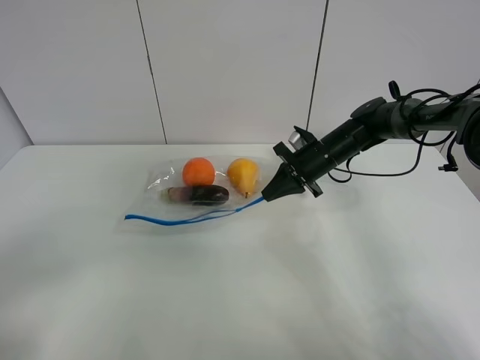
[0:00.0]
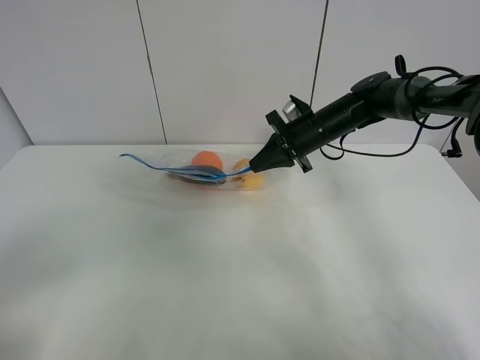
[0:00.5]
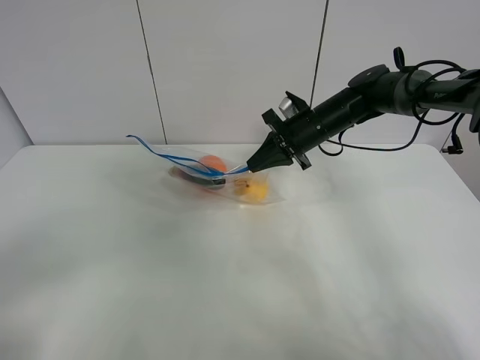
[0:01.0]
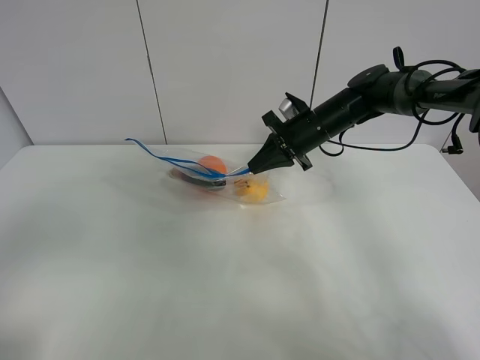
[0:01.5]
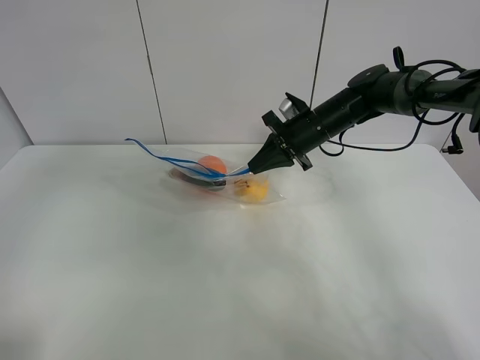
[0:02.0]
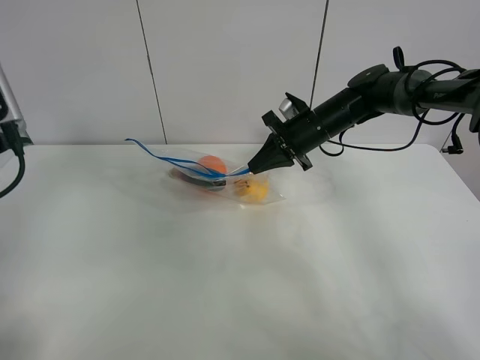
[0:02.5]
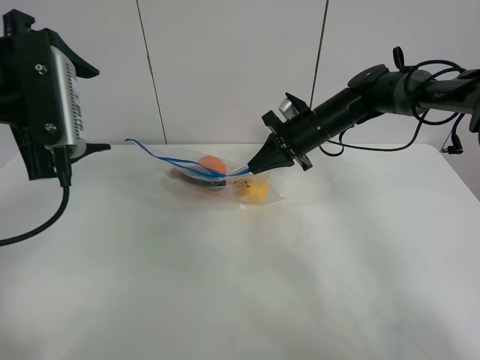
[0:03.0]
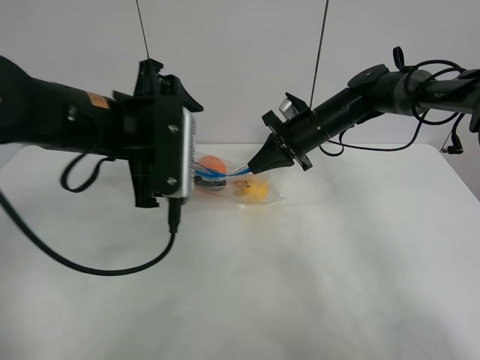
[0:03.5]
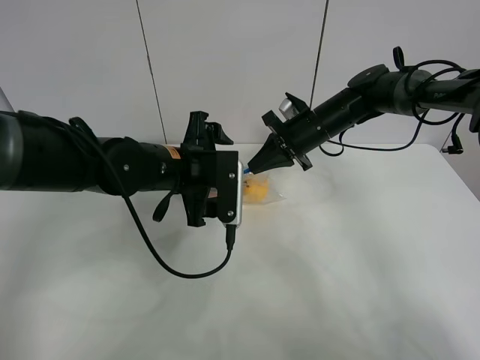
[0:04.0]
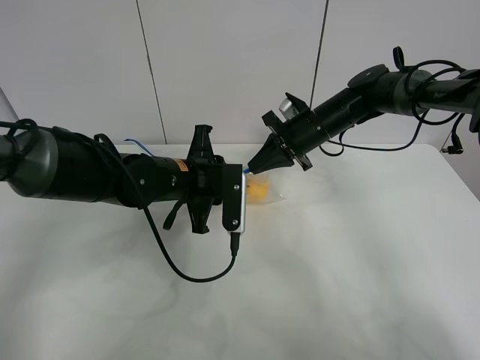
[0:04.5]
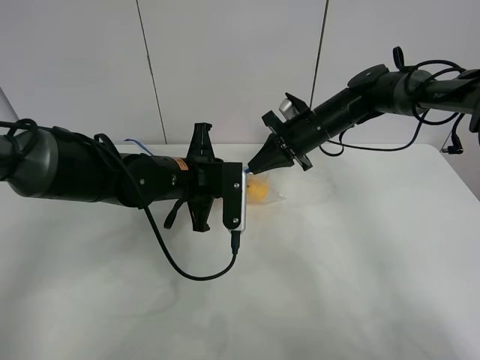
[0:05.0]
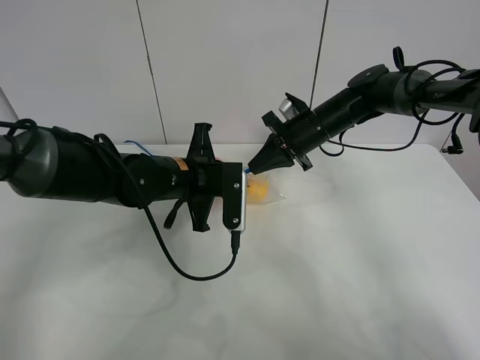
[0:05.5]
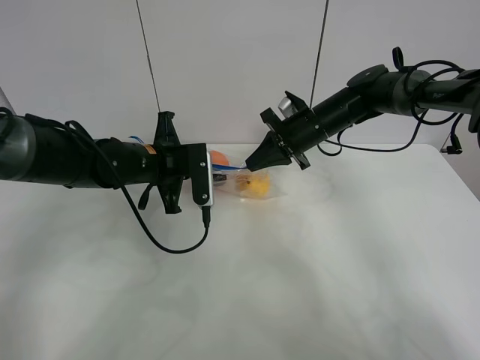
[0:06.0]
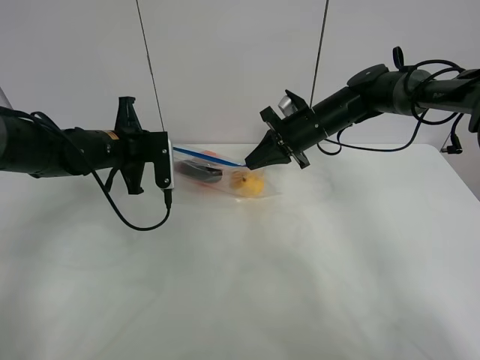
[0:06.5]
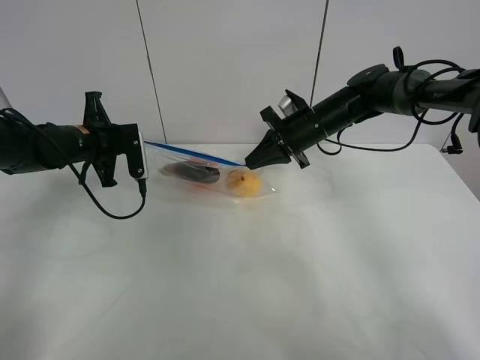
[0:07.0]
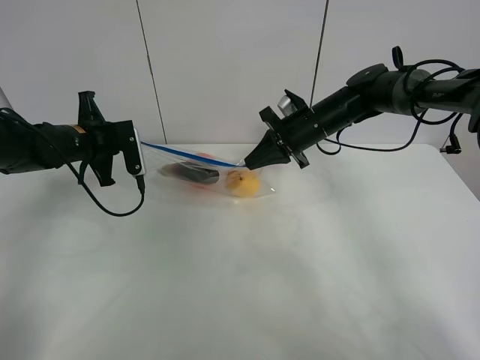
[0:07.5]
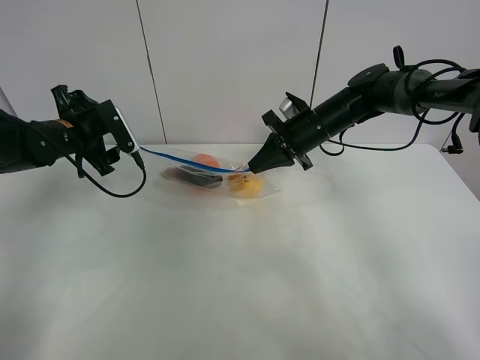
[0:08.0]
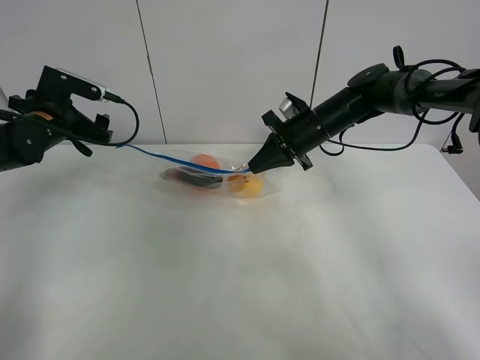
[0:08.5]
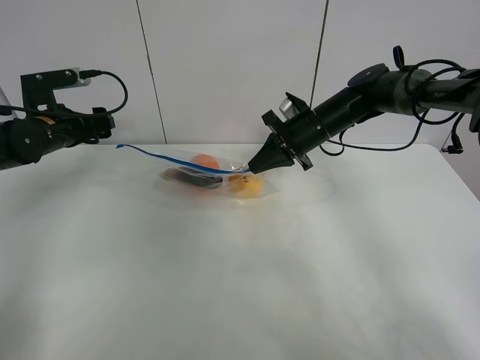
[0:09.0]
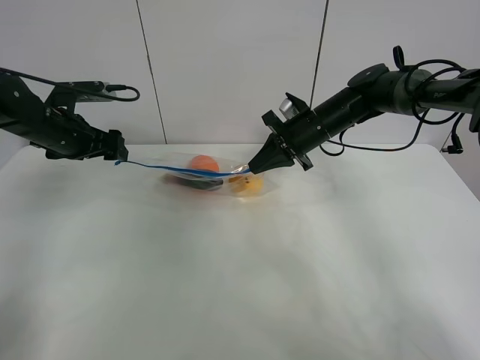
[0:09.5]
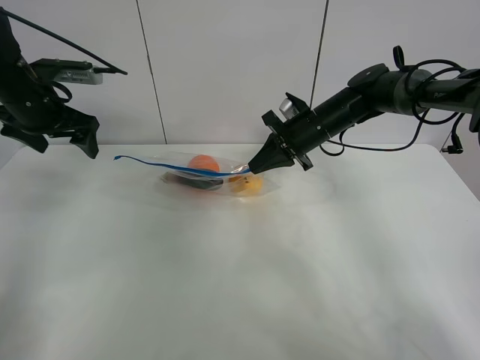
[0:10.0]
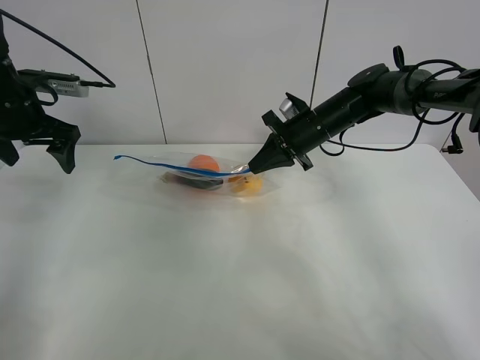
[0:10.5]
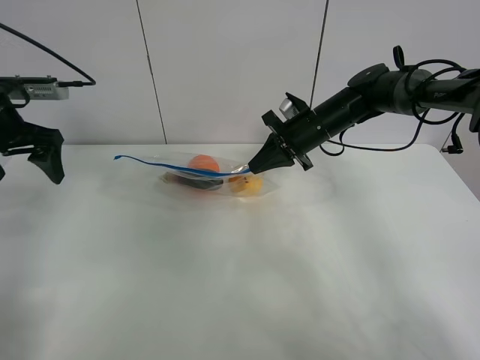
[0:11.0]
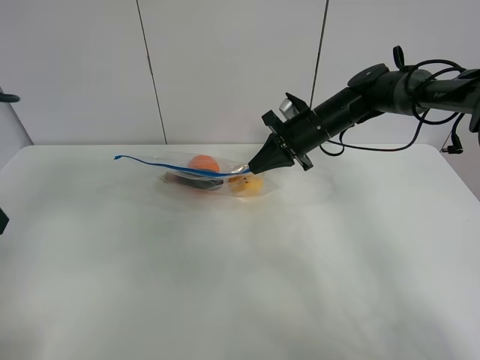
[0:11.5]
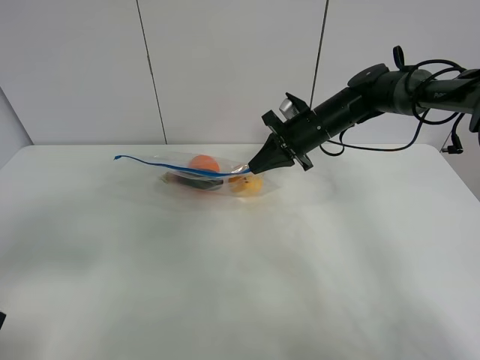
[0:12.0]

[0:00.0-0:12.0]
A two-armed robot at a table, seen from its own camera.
Step, 0:00.0 to 0:01.0: Lift the fruit bag with your right gripper.
Step, 0:01.5 to 0:08.0: Pull the fruit bag with left gripper.
0:00.0 to 0:02.0: The right gripper travels upward by some 5 cm; the left gripper moves forward and upward, approximately 20 cm.
0:02.0 to 0:04.0: The left gripper travels to the right, downward and forward by some 30 cm.
0:04.0 to 0:06.0: The left gripper moves to the left, approximately 5 cm, and closes up.
0:06.0 to 0:08.0: The left gripper goes about 15 cm to the left, and opens up.
0:08.0 to 0:10.0: The left gripper moves upward, some 10 cm.
0:10.0 to 0:12.0: The left gripper goes about 30 cm backward.

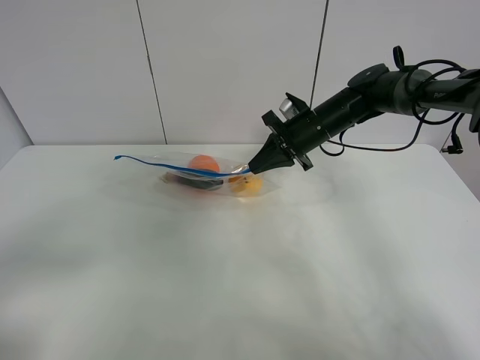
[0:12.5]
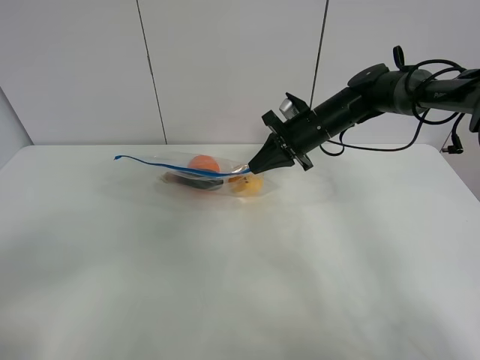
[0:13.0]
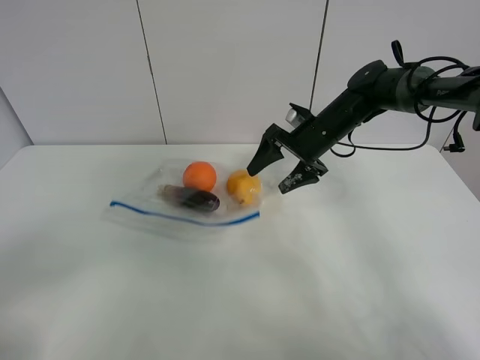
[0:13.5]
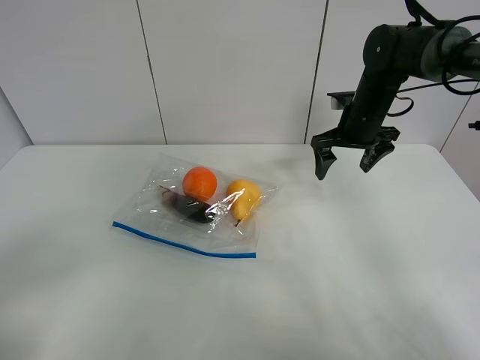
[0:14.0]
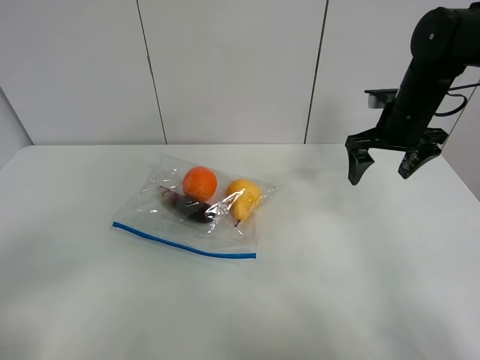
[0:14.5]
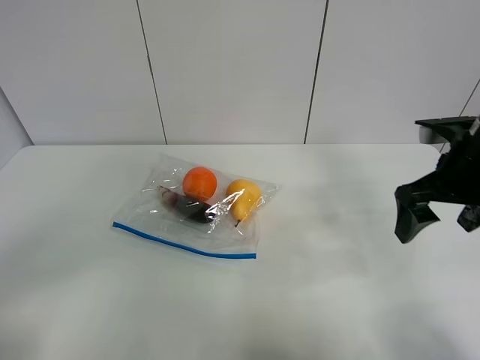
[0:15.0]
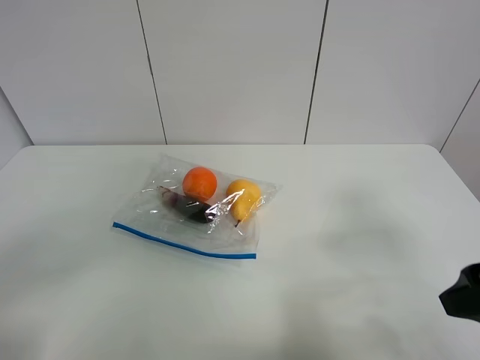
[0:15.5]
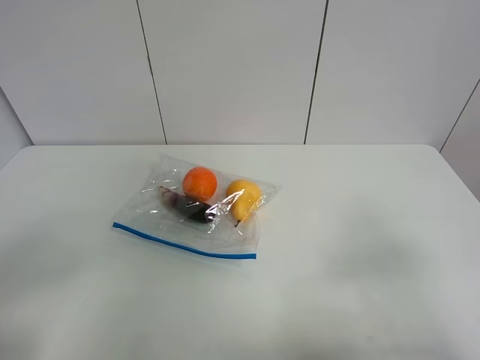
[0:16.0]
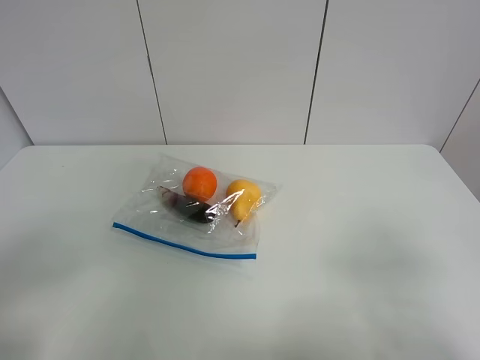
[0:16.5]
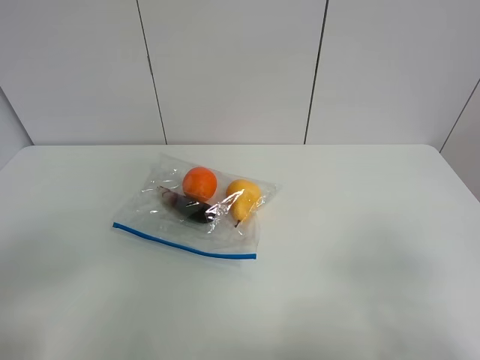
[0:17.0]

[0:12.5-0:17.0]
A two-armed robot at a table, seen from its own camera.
0:12.5 to 0:14.5: The right gripper moves to the right, upward and backward, about 15 cm, and opens its fingers.
0:14.5 to 0:17.0: The right gripper is displaced backward by about 40 cm.

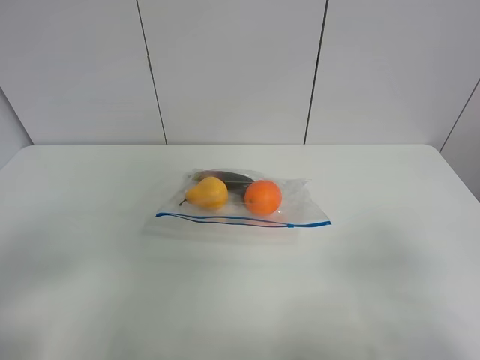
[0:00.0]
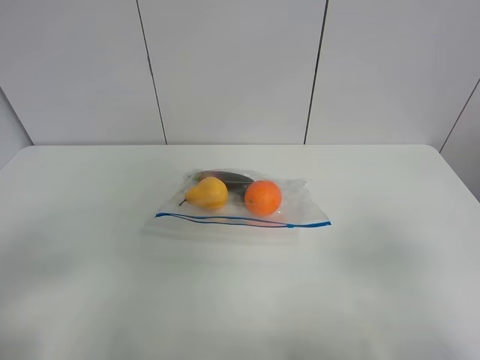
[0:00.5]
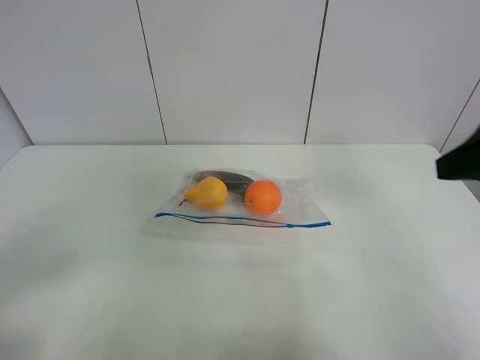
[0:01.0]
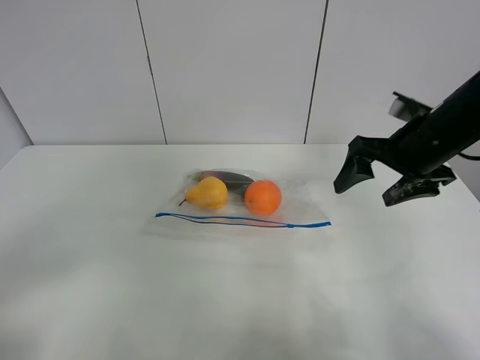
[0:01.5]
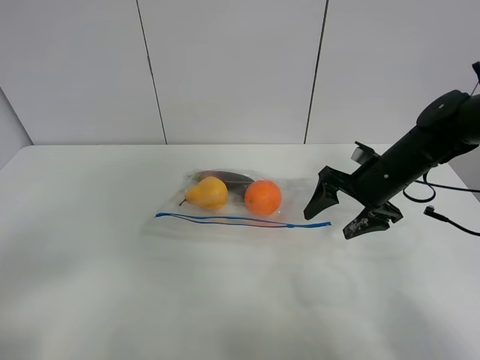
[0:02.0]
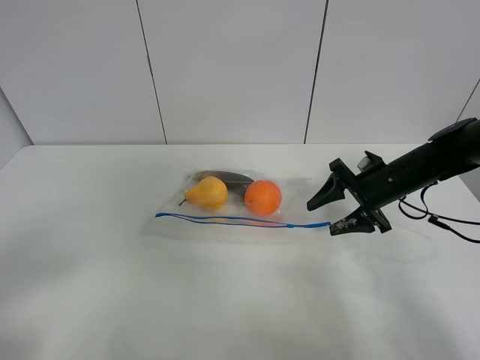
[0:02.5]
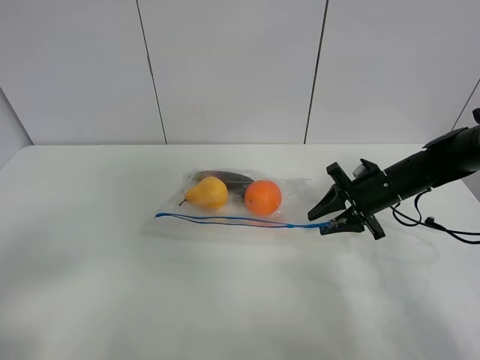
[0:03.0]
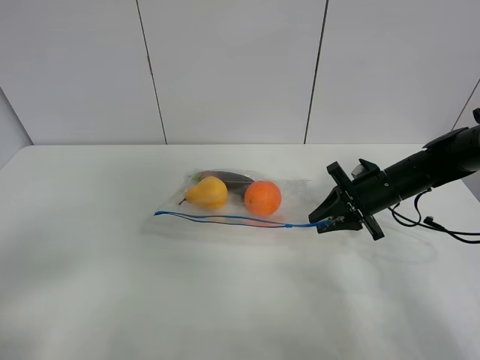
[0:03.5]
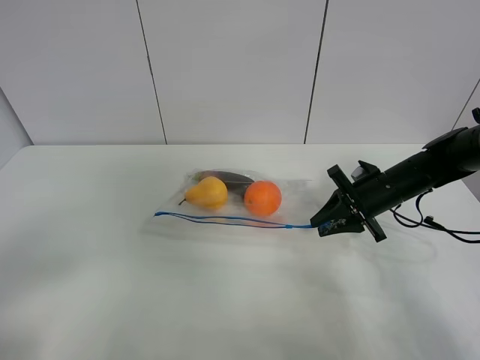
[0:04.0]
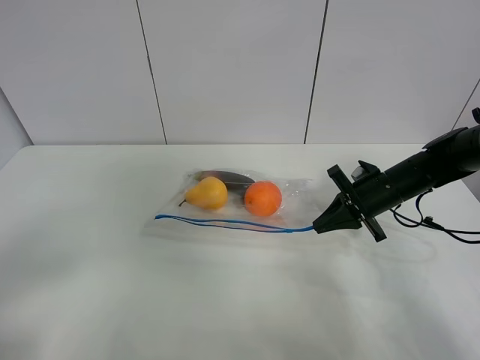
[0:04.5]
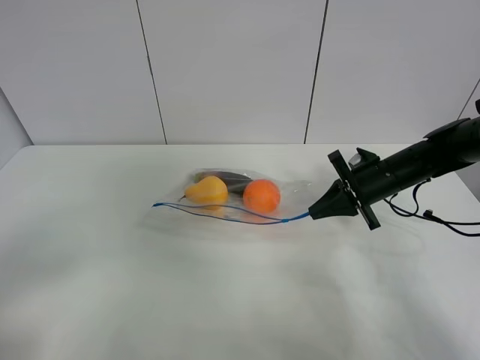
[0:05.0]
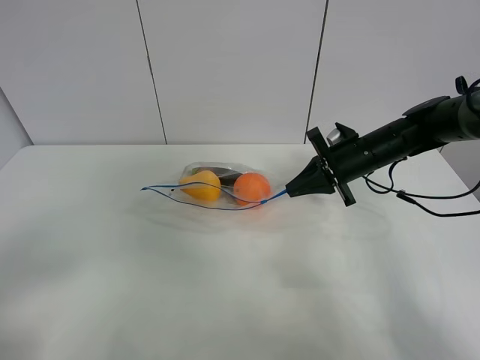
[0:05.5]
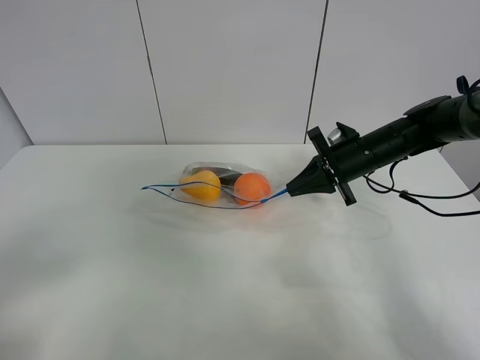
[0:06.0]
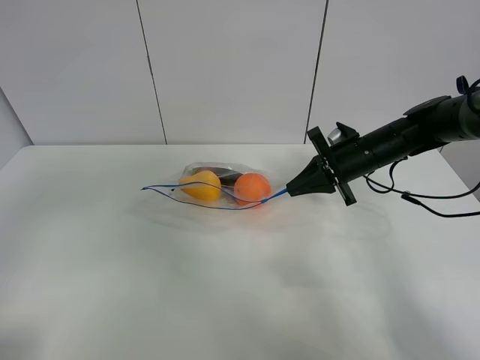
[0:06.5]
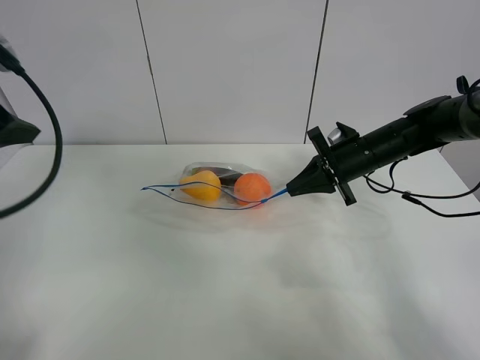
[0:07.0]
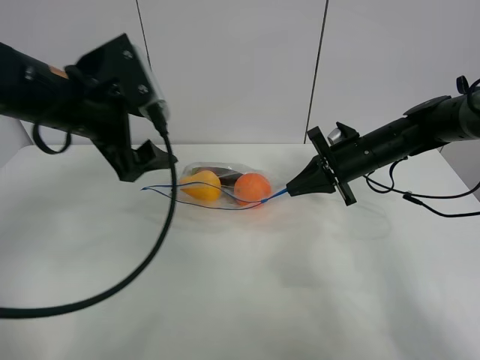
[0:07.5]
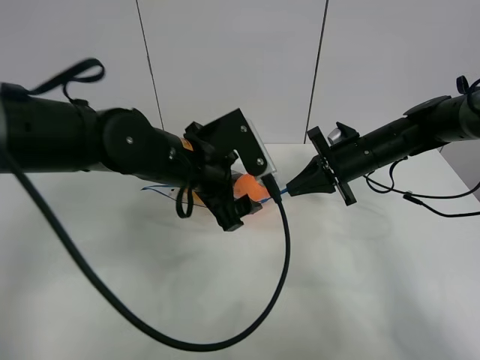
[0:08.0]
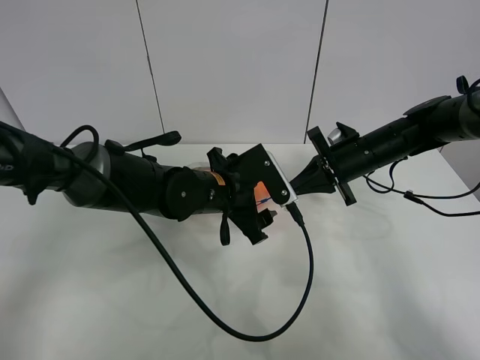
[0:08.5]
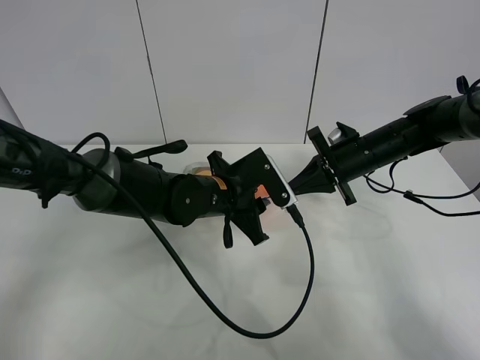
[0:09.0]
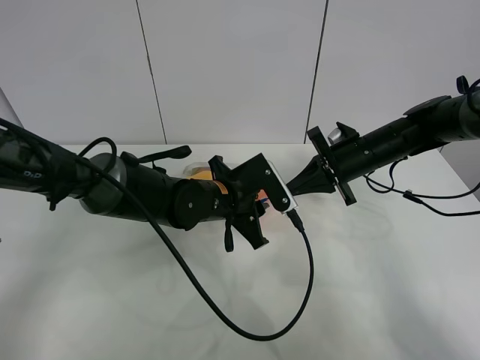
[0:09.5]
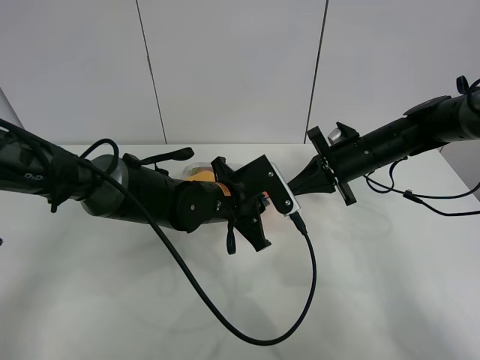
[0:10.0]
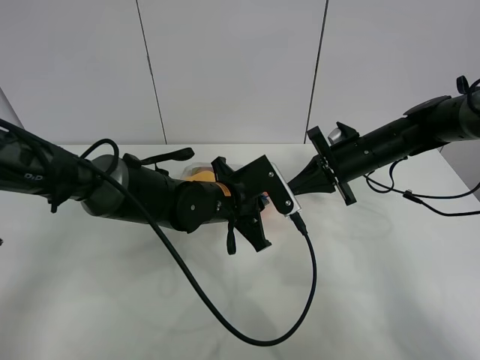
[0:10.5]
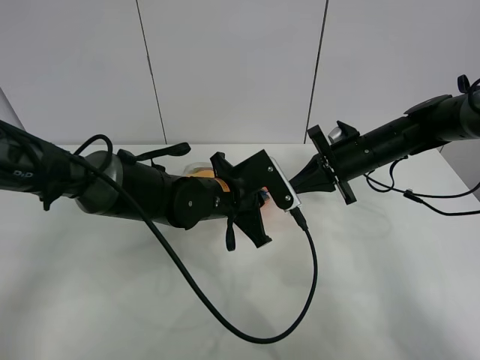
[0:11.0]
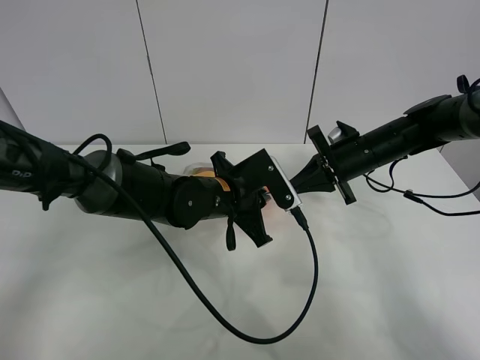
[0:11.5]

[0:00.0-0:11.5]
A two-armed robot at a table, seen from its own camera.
Step, 0:00.0 to 0:04.0: Grasp the fruit bag with right gripper.
Step, 0:04.5 to 0:05.5: Lift the fruit bag with your right gripper.
0:00.0 to 0:02.0: The right gripper is displaced forward by about 35 cm.
0:02.0 to 0:04.0: The right gripper closes up.
0:04.0 to 0:06.0: The right gripper shifts by approximately 5 cm.
0:06.0 to 0:07.5: The left gripper heads forward and to the right, covering about 30 cm.
0:07.5 to 0:09.5: The left gripper heads downward and to the right, covering roughly 20 cm, and closes.
0:09.5 to 0:11.5: Both grippers stay about where they are.
